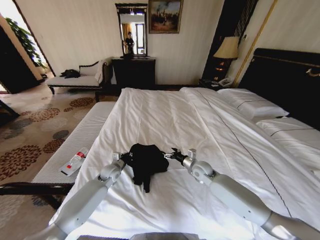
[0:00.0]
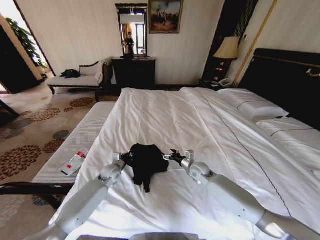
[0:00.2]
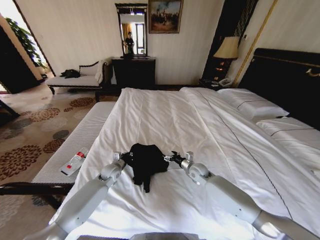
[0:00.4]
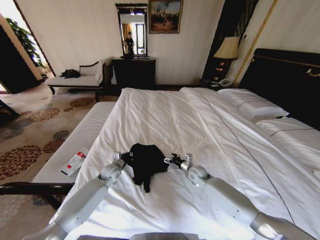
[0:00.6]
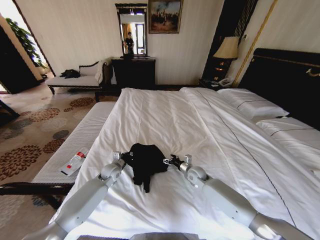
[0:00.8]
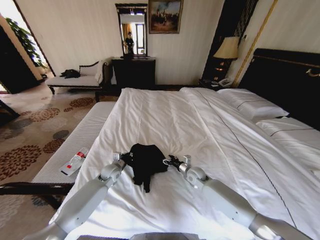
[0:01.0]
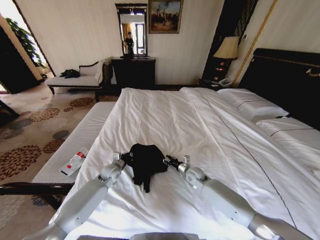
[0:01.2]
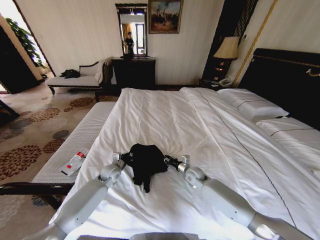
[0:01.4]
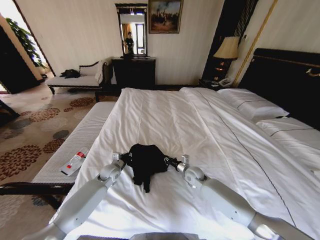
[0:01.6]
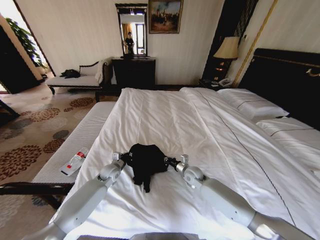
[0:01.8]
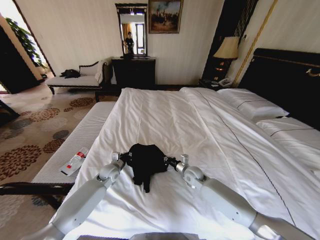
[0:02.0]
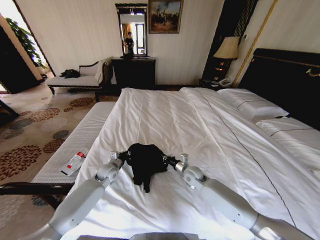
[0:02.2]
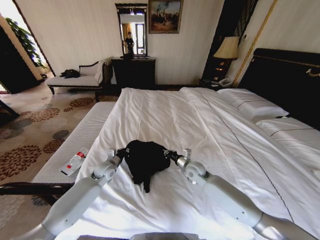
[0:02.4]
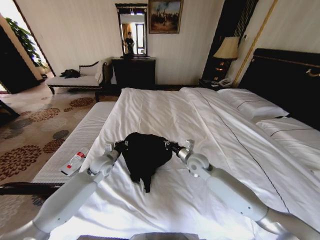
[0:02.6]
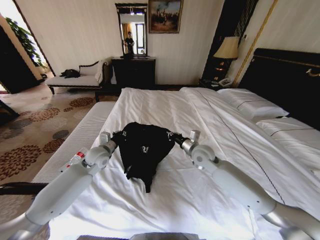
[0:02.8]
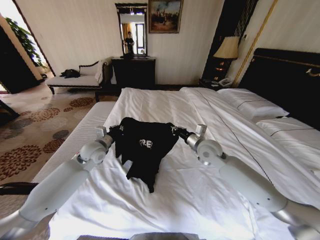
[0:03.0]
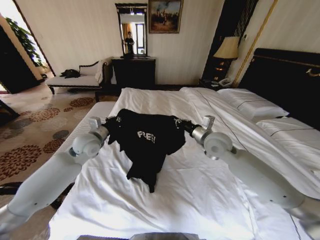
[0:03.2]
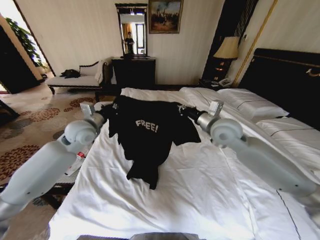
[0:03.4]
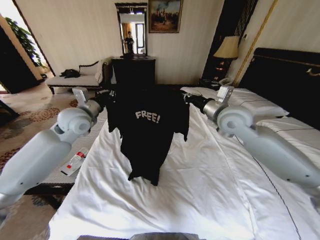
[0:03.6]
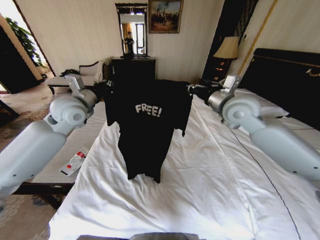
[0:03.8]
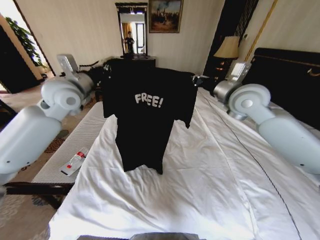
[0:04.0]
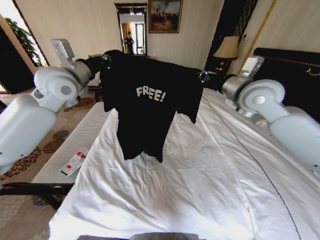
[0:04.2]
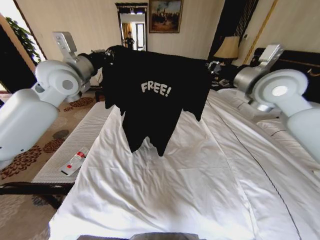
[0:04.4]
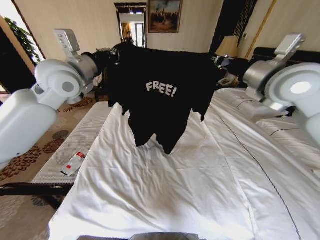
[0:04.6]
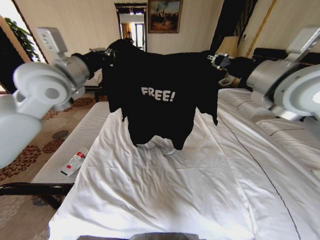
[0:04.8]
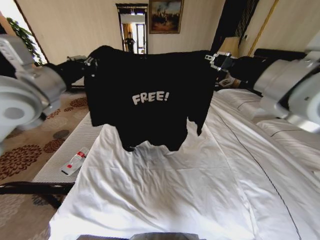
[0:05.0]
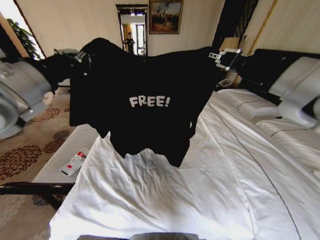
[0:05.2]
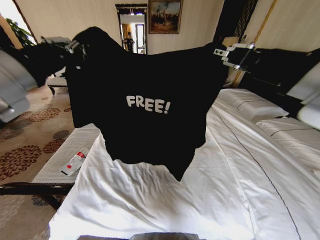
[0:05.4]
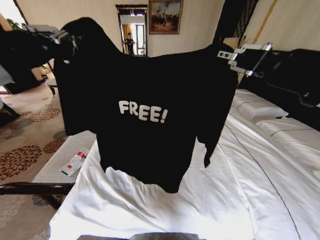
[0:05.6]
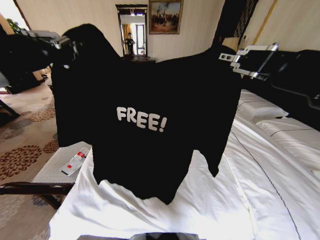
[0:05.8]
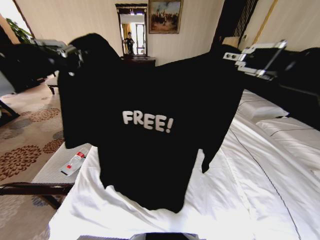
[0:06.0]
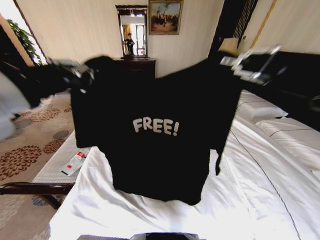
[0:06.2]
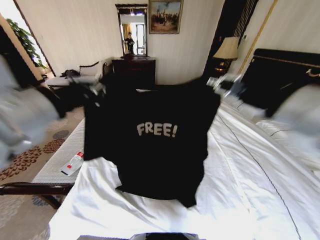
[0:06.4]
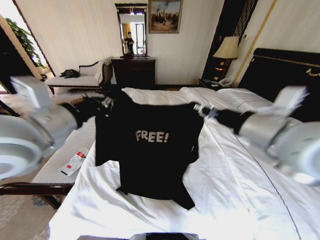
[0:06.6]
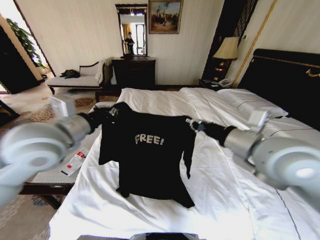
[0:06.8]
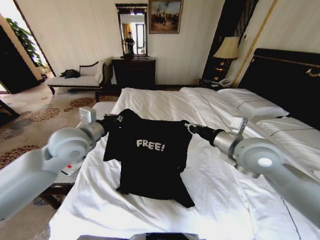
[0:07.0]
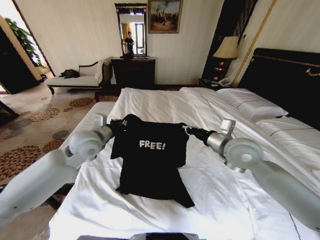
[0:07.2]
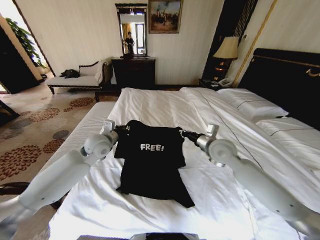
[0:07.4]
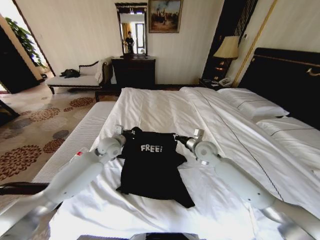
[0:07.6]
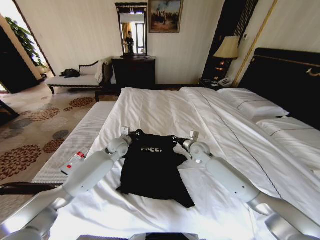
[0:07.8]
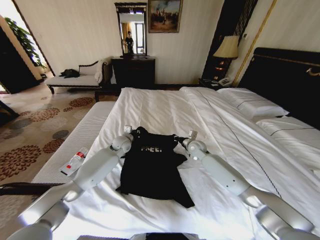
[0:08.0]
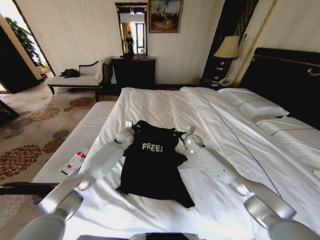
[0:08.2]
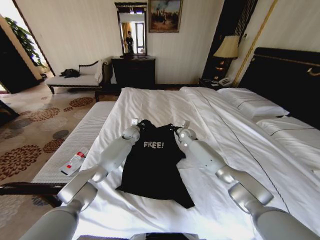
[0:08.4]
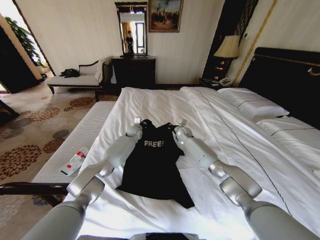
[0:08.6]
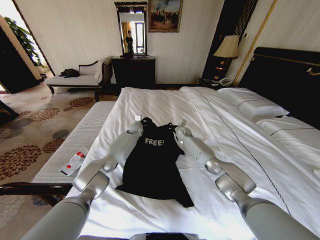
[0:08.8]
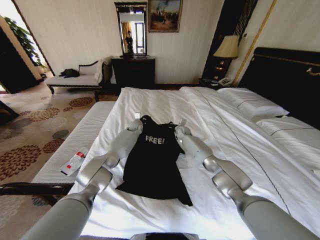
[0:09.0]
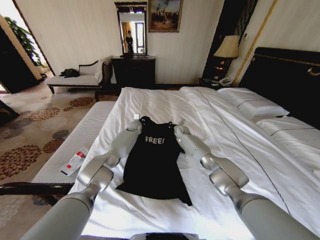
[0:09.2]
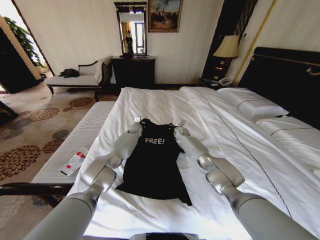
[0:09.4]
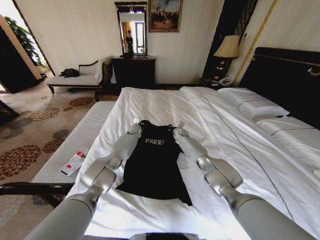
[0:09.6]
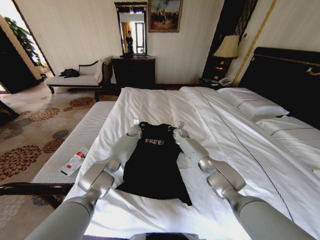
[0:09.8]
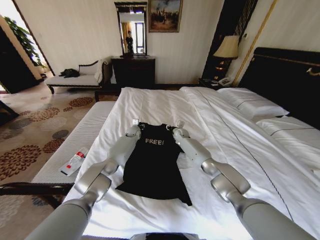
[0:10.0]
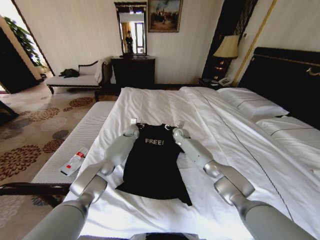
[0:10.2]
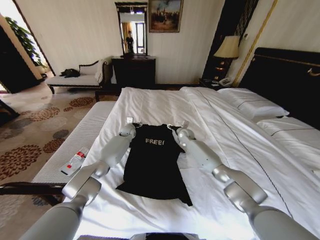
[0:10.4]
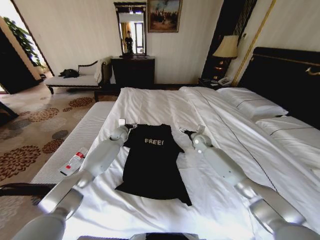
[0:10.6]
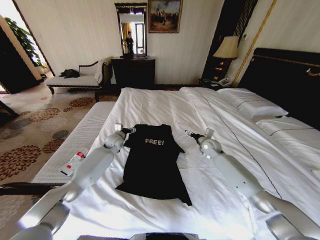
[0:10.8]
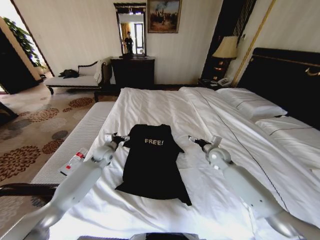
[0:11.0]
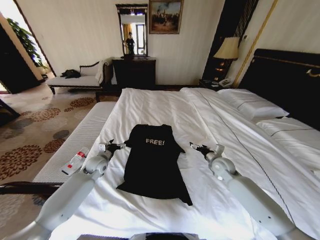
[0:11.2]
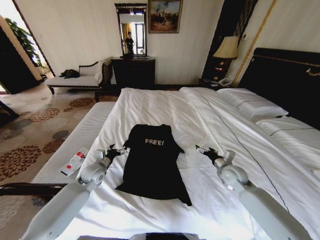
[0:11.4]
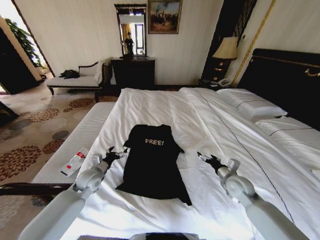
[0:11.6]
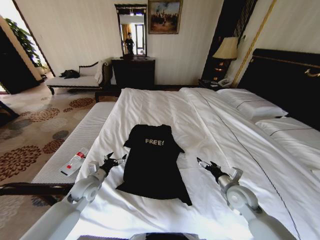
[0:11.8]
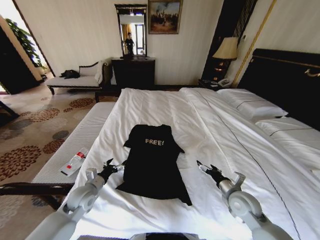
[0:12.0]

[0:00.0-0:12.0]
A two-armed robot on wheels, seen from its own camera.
Task of the whole recording: Fold the clothes on the bed.
0:00.0 to 0:01.6: The right gripper shifts by roughly 5 cm, and closes its fingers.
0:01.6 to 0:03.0: The grippers both shift upward by some 20 cm.
0:03.0 to 0:04.4: Both grippers travel together upward, about 25 cm.
0:04.4 to 0:06.0: The grippers both shift backward by approximately 25 cm.
0:06.0 to 0:07.6: The grippers both shift downward and forward by some 40 cm.
0:07.6 to 0:09.0: The right gripper is displaced forward and downward by roughly 25 cm. The left gripper travels forward and to the right by about 25 cm.
0:09.0 to 0:10.4: The right gripper ends up about 5 cm from where it was, and opens up. The left gripper travels to the left by about 5 cm, and opens up.
0:10.4 to 0:12.0: Both grippers move backward, roughly 35 cm.

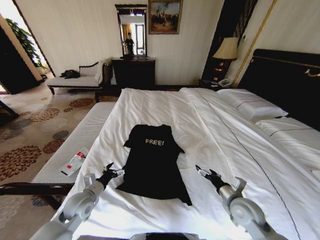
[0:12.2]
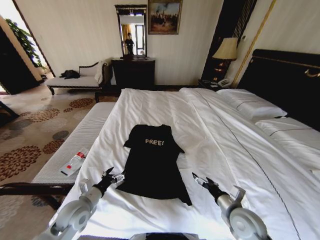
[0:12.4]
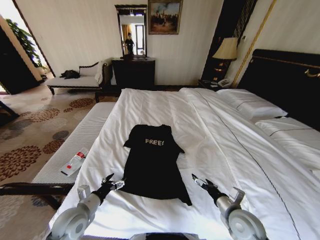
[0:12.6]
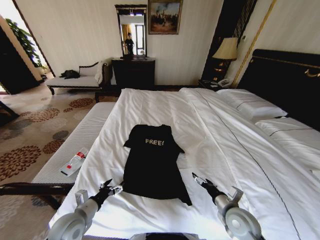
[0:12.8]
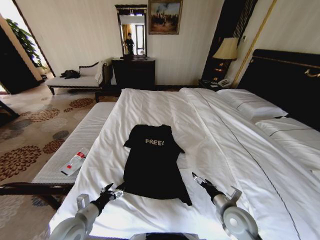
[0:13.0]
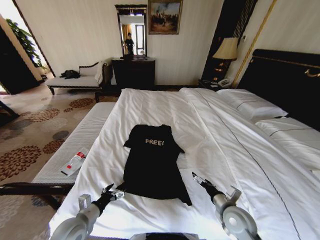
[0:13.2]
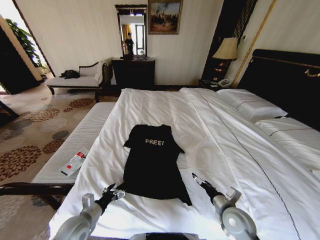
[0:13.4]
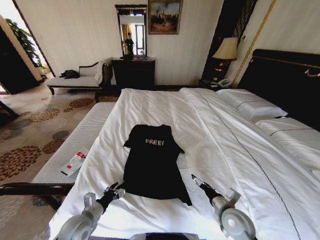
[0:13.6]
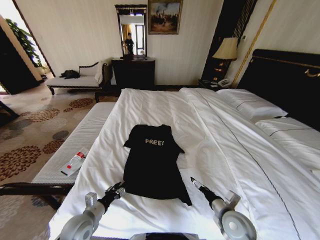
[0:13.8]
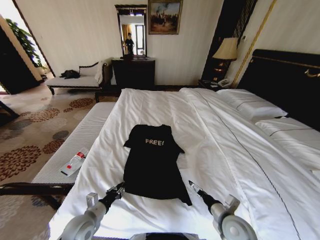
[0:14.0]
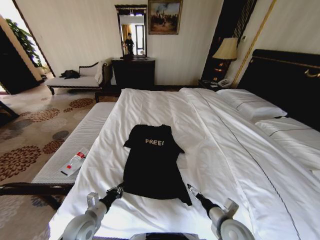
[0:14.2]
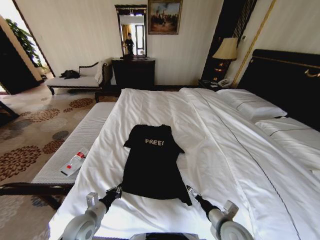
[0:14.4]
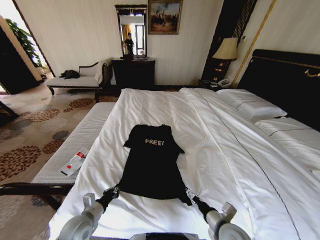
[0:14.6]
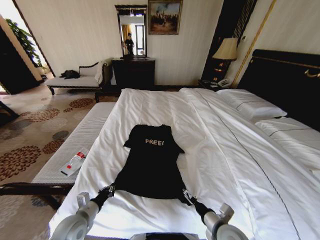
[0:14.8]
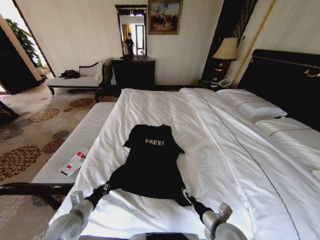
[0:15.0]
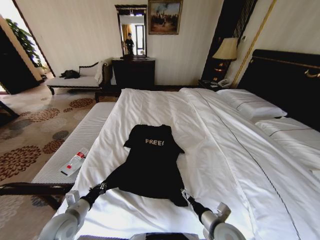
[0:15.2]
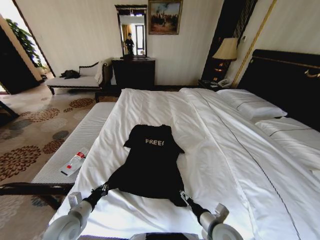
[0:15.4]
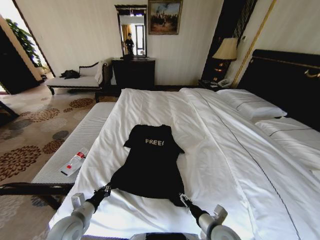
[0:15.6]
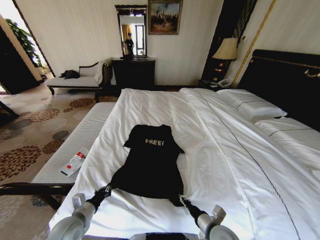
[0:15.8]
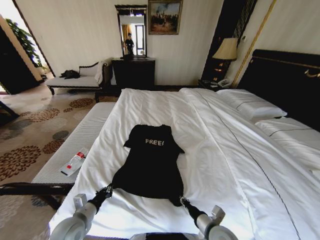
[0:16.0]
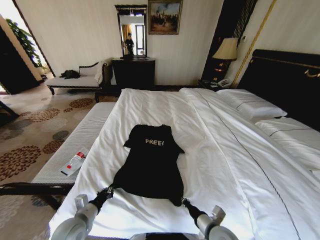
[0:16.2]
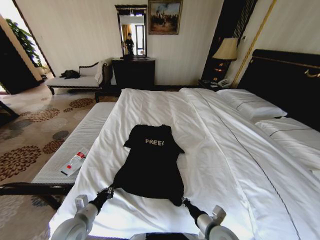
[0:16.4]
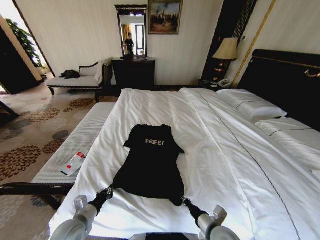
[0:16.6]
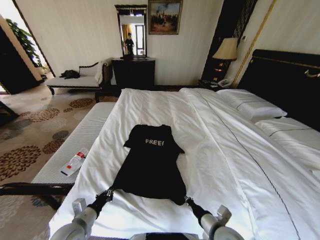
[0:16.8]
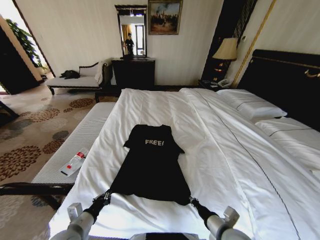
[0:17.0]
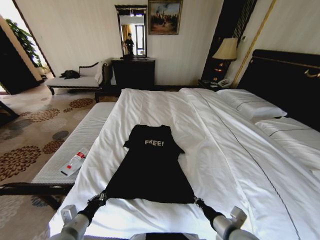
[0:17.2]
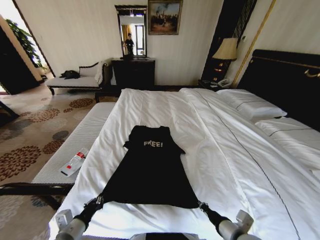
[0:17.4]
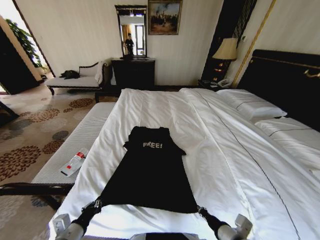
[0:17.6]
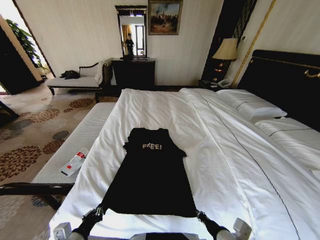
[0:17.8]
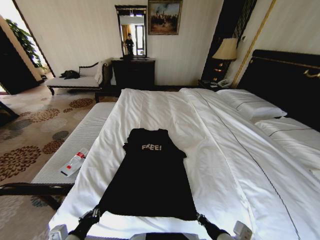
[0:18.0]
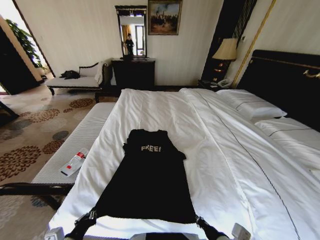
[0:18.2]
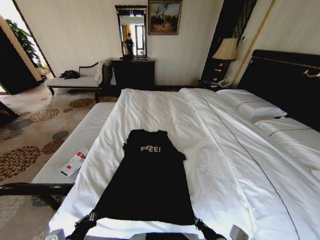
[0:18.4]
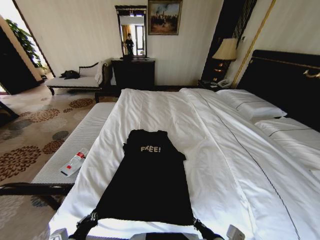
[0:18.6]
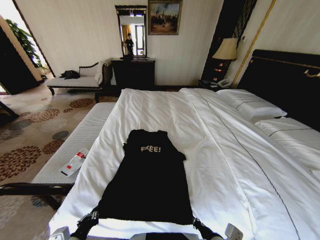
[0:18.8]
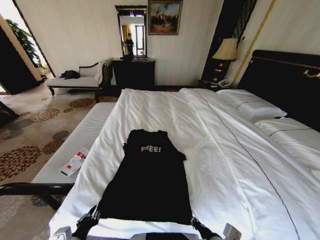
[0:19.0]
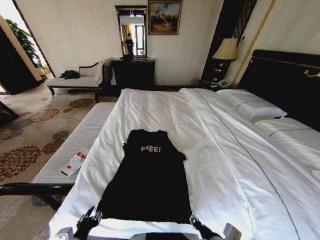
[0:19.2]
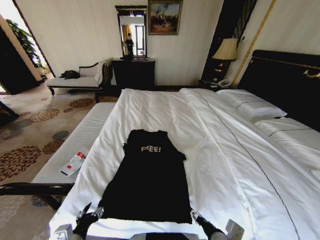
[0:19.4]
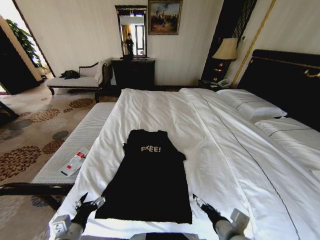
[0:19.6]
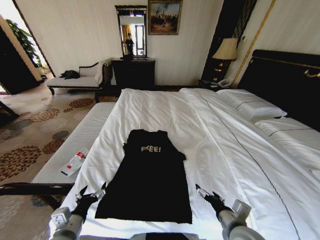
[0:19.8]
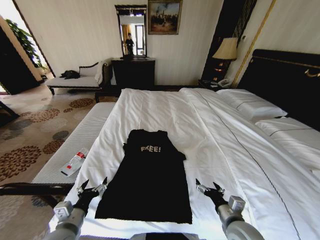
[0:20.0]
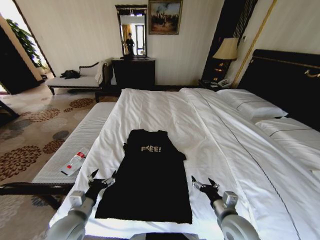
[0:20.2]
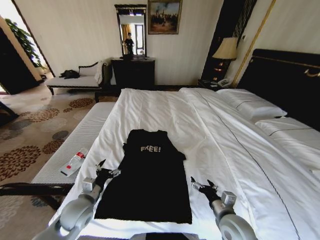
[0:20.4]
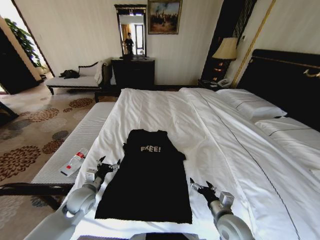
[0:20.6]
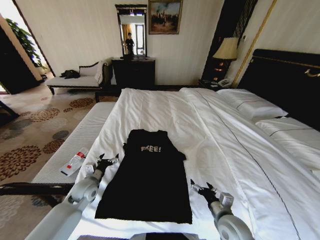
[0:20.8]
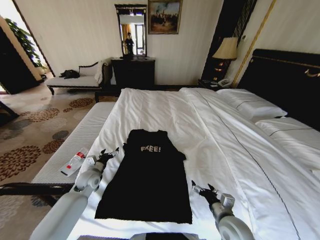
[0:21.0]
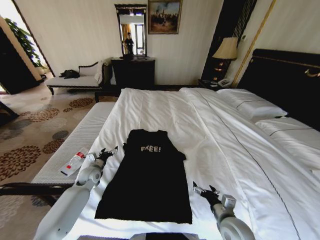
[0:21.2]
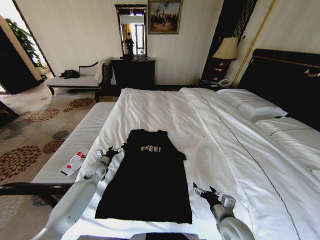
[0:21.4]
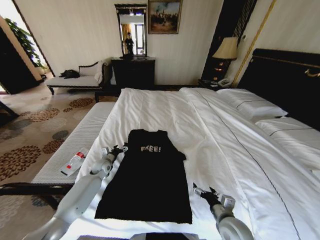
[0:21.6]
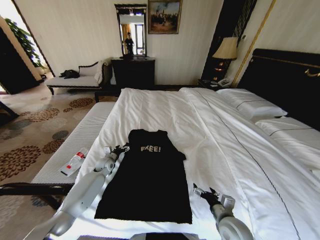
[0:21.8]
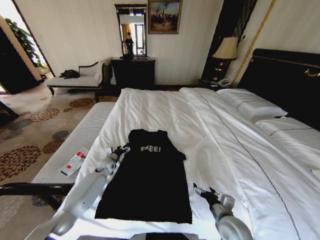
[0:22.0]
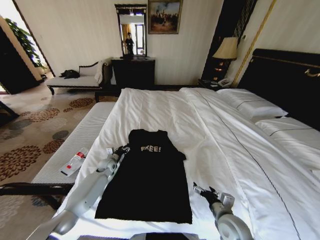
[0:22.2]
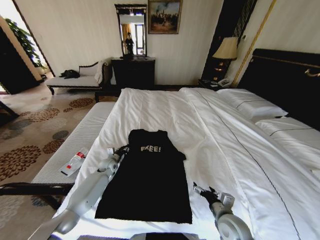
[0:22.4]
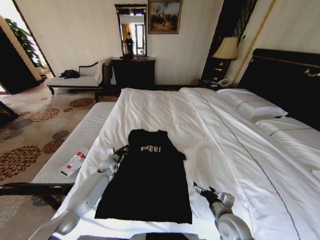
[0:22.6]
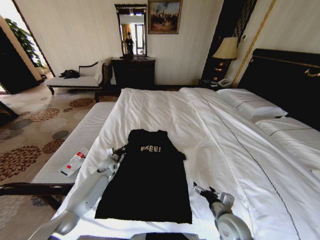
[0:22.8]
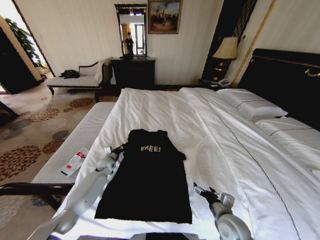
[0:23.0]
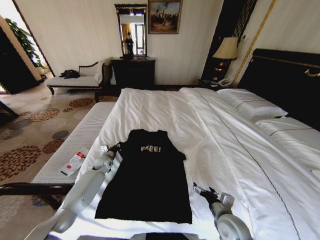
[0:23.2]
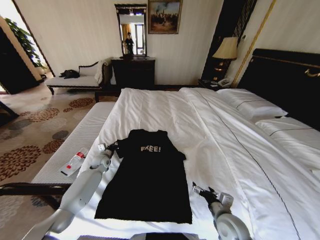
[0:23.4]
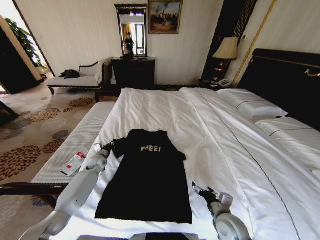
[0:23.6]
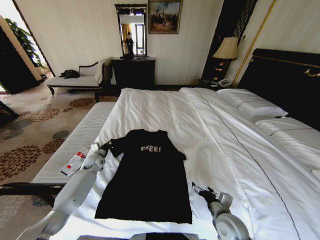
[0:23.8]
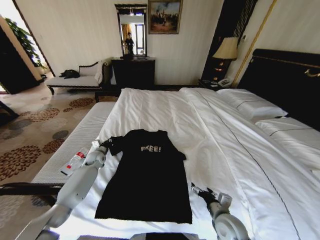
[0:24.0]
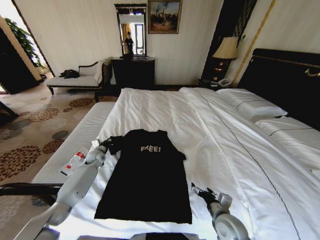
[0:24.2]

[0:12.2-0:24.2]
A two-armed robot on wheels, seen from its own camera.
Task of the whole recording: Fold the clothes on the bed.
0:12.2 to 0:13.8: The left gripper shifts roughly 5 cm backward, and closes its fingers. The right gripper changes place by approximately 5 cm.
0:13.8 to 0:15.2: The right gripper shifts by about 5 cm. The left gripper ends up some 5 cm from where it was, and closes.
0:15.2 to 0:16.6: The right gripper closes.
0:16.6 to 0:18.2: The right gripper is displaced backward and upward by some 10 cm. Meanwhile the left gripper travels backward by some 10 cm.
0:18.2 to 0:19.8: Both grippers move forward, approximately 5 cm. The right gripper opens up. The left gripper opens.
0:19.8 to 0:21.2: The right gripper shifts about 5 cm downward; the left gripper heads forward, covering about 30 cm.
0:21.2 to 0:22.6: The left gripper heads forward and to the right, covering approximately 10 cm, and closes up.
0:22.6 to 0:24.2: The left gripper is displaced to the left by some 5 cm.
